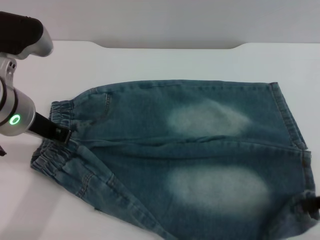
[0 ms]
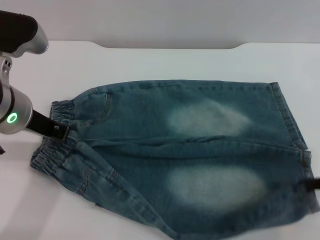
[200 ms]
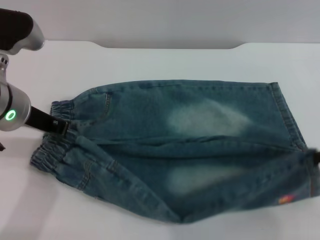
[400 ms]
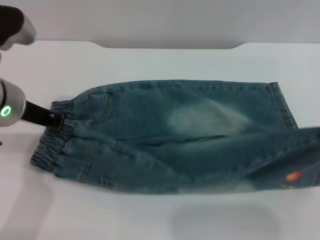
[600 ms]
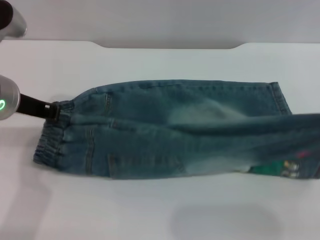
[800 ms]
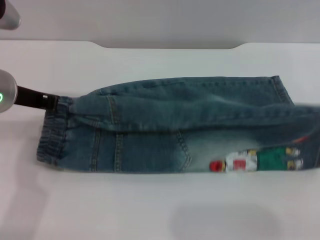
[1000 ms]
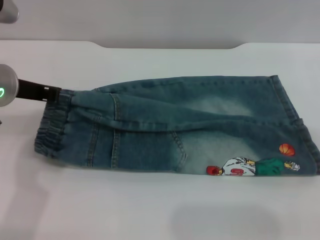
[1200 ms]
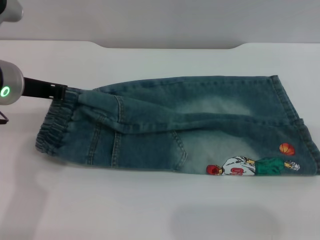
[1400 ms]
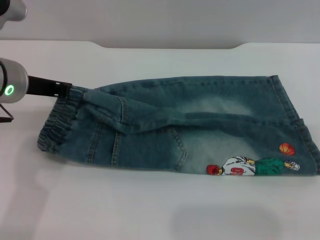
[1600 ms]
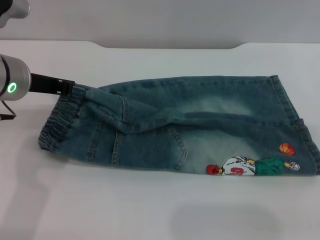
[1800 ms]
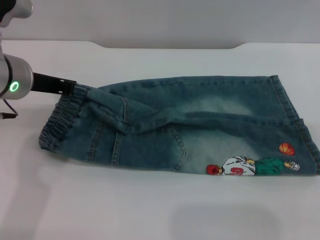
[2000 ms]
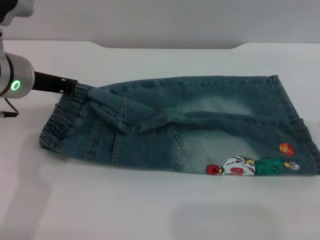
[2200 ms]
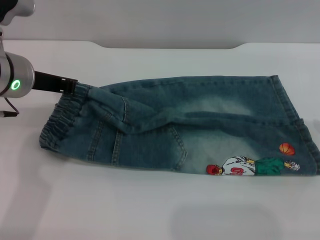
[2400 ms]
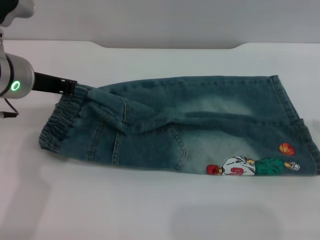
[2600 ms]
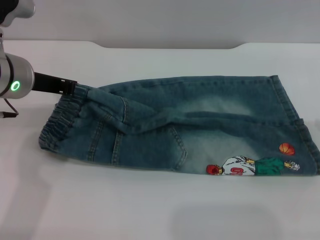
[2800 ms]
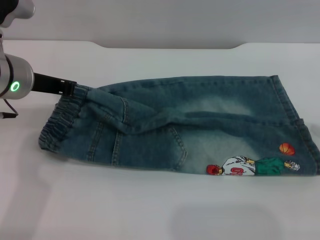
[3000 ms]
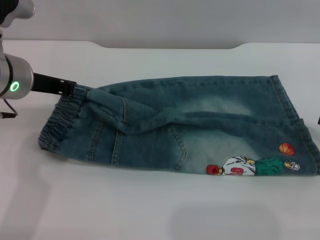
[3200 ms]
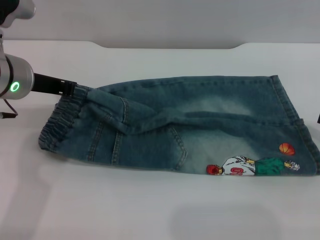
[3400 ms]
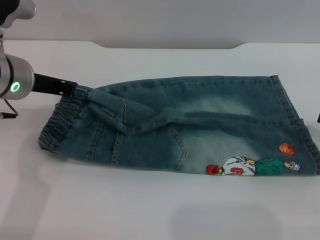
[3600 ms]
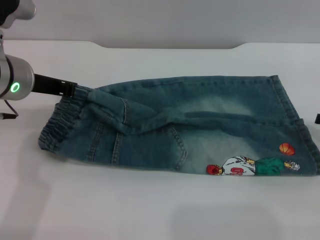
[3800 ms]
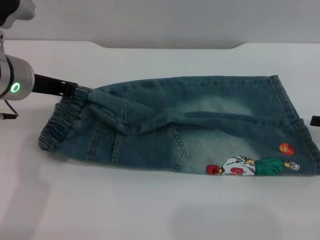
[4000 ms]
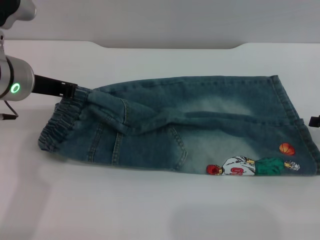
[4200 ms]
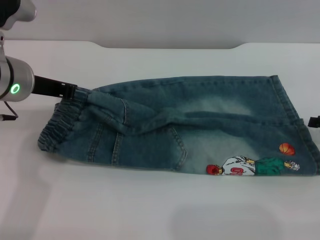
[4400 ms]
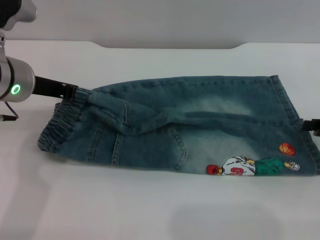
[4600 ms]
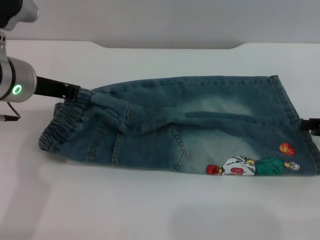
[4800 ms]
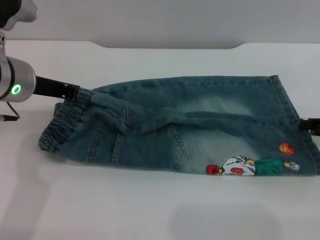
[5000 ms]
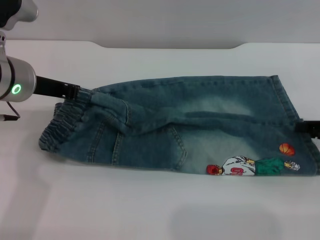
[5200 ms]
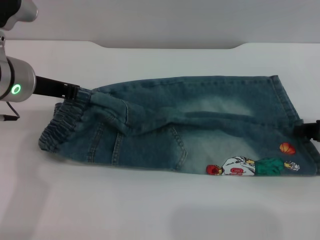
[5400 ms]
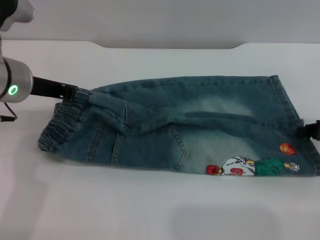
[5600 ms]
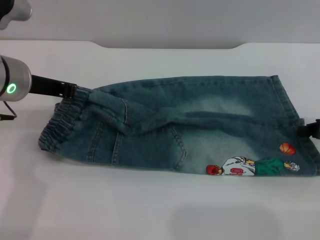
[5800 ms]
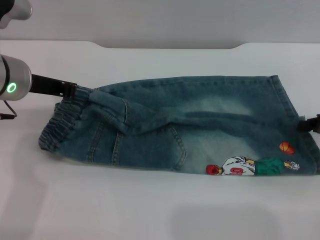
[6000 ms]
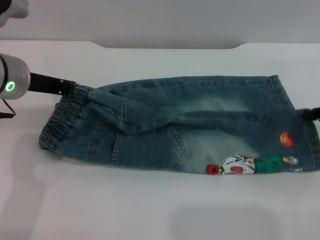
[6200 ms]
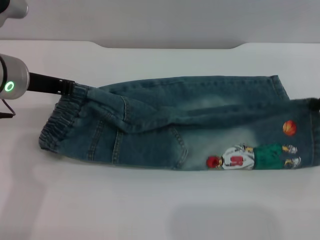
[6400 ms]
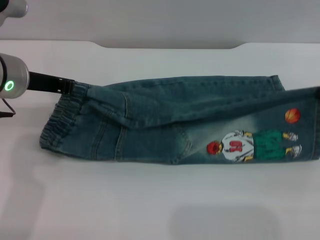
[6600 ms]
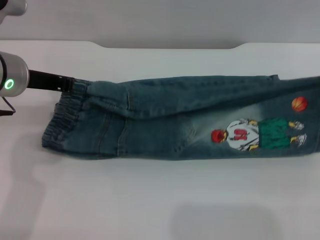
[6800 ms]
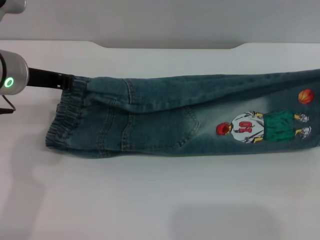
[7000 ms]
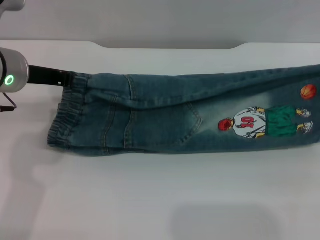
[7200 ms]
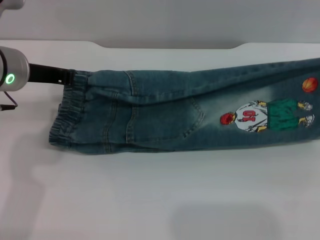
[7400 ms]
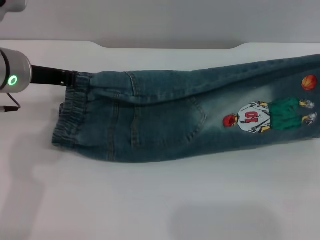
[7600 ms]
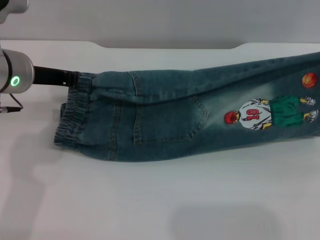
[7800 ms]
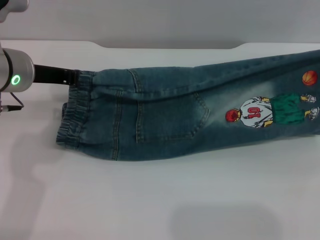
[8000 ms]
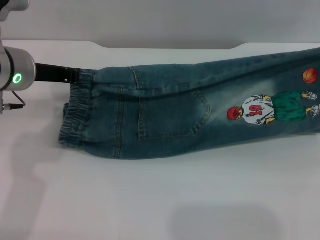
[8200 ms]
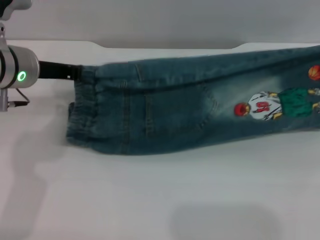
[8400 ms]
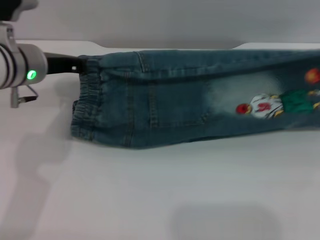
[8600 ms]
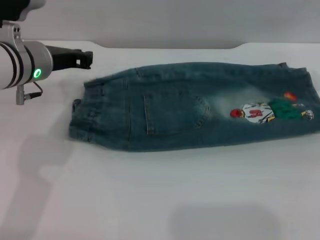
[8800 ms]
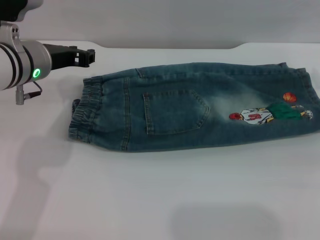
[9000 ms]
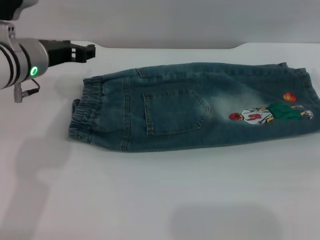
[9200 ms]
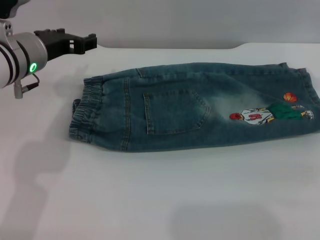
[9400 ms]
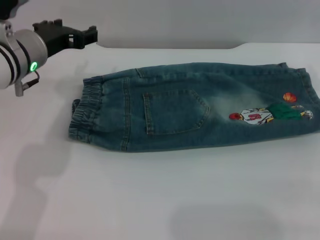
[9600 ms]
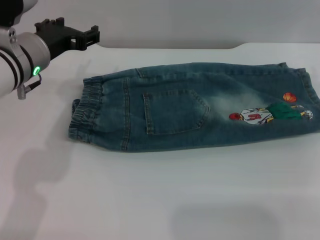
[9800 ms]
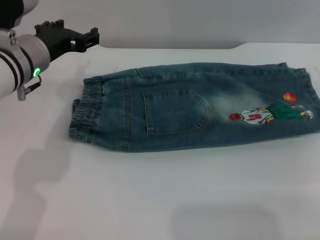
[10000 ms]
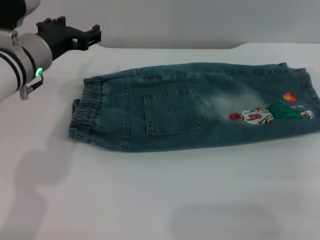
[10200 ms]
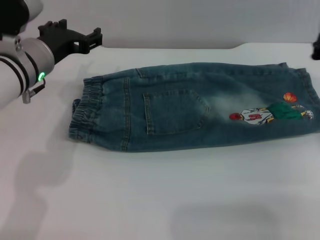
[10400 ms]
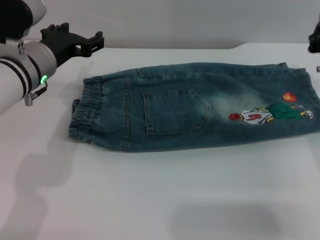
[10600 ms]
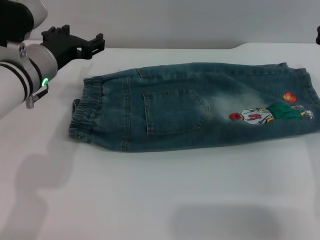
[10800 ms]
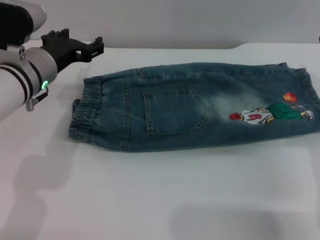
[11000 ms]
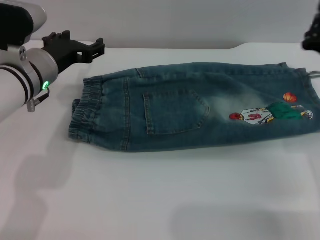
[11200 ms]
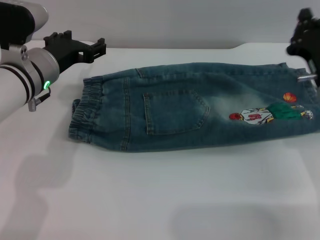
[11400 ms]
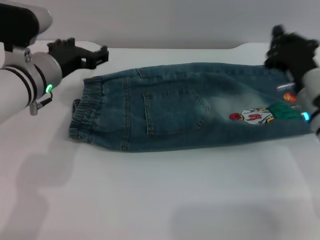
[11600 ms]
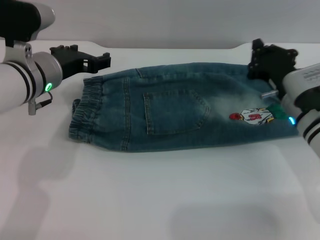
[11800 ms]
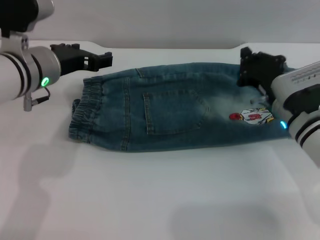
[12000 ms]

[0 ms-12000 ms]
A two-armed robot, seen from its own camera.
Step, 0 ms to 9000 ms: Fold the bottom of the pants upward with both grippers.
0 ms to 1600 ms: The right gripper heads upward and to the right, covering roughly 10 cm.
3000 ms to 4400 ms: There are only small adjustments of the grippers.
6000 ms to 7600 ms: The right gripper is displaced upward by about 10 cm.
7600 ms to 9000 ms: The right gripper ends up about 5 cm from where it was.
9000 ms to 10400 ms: The left gripper opens up.
10400 ms to 12000 ms: The right gripper travels downward and to the left by about 10 cm.

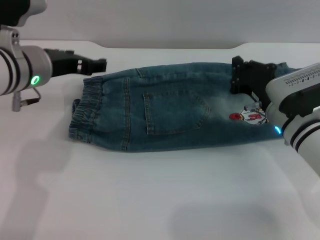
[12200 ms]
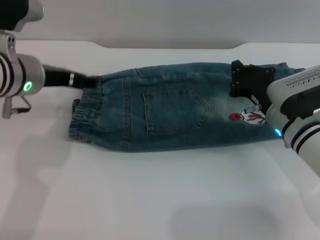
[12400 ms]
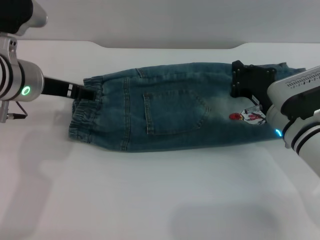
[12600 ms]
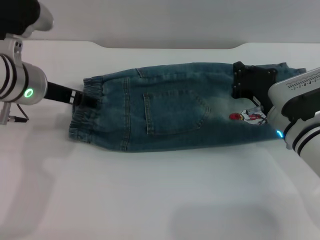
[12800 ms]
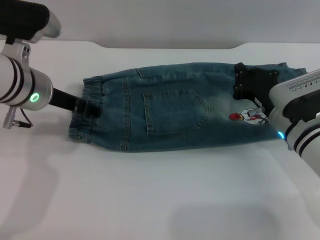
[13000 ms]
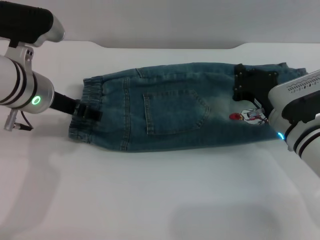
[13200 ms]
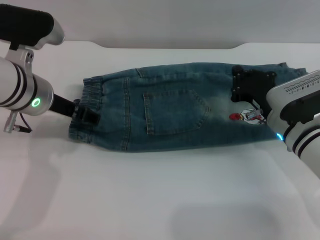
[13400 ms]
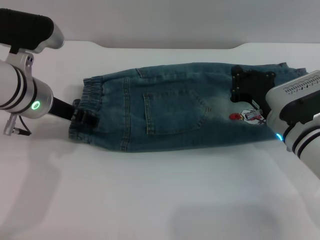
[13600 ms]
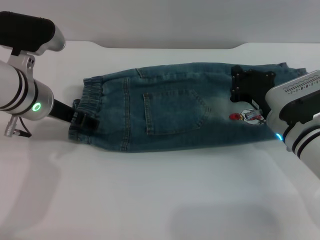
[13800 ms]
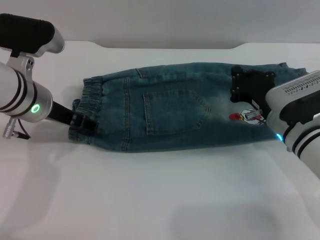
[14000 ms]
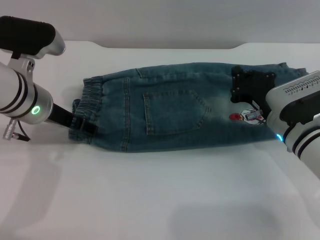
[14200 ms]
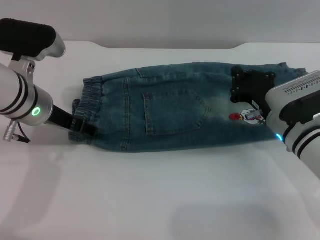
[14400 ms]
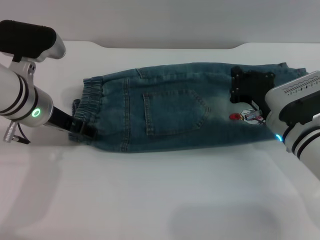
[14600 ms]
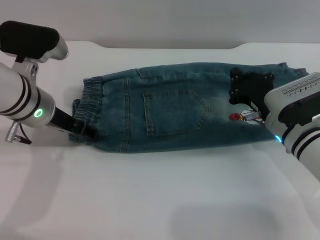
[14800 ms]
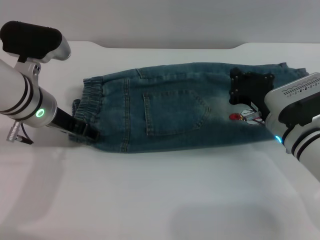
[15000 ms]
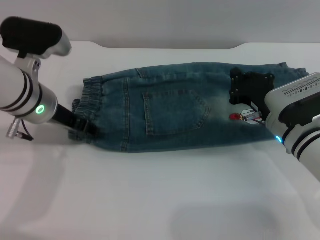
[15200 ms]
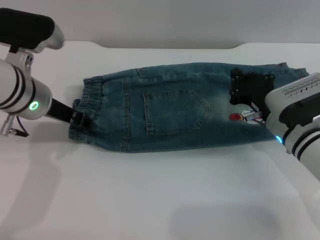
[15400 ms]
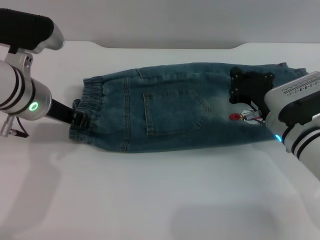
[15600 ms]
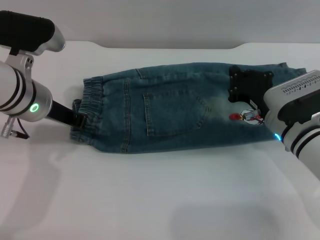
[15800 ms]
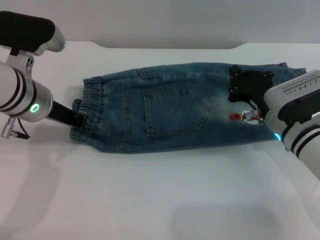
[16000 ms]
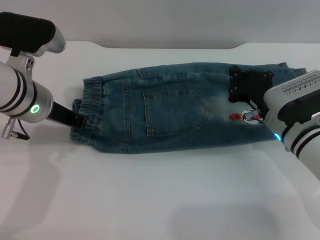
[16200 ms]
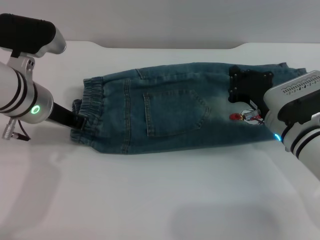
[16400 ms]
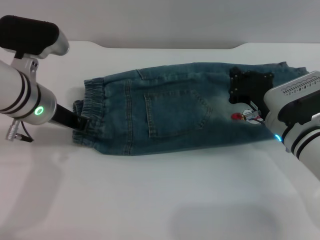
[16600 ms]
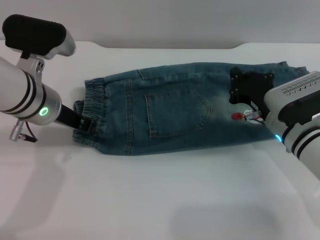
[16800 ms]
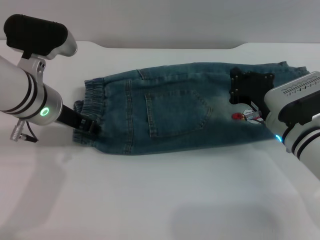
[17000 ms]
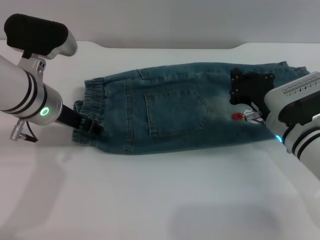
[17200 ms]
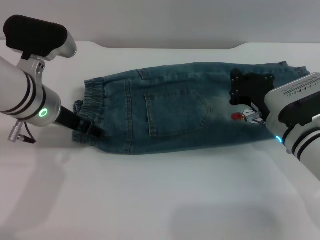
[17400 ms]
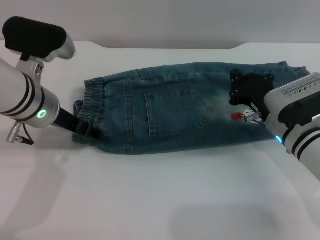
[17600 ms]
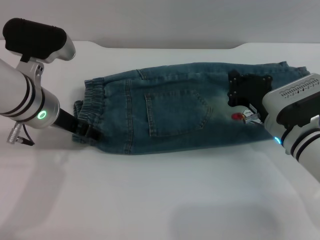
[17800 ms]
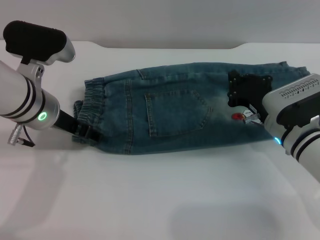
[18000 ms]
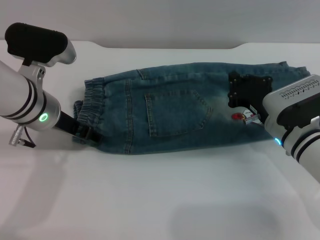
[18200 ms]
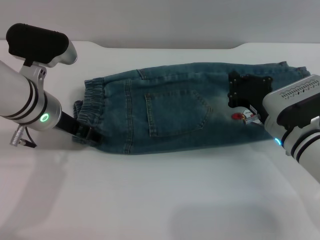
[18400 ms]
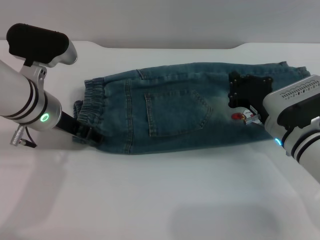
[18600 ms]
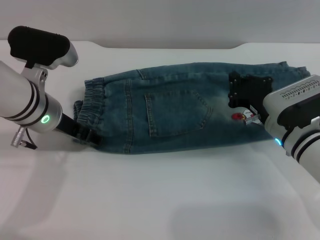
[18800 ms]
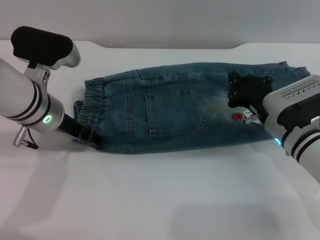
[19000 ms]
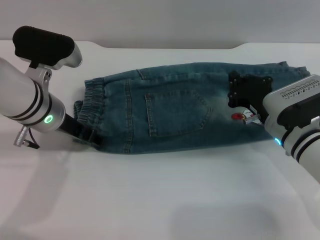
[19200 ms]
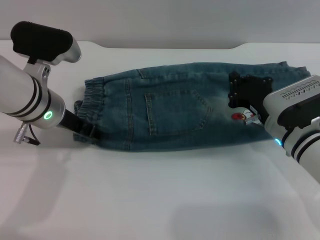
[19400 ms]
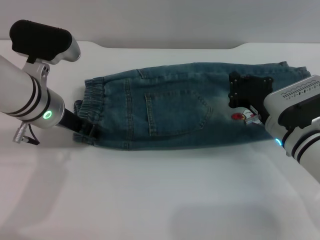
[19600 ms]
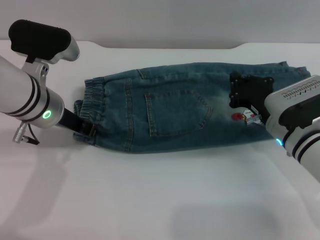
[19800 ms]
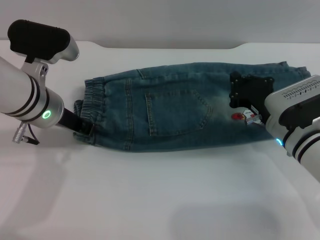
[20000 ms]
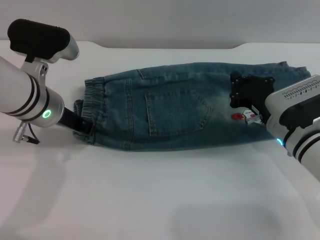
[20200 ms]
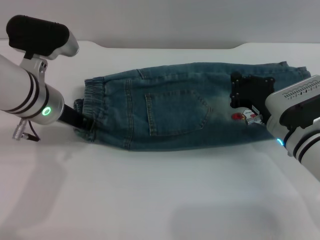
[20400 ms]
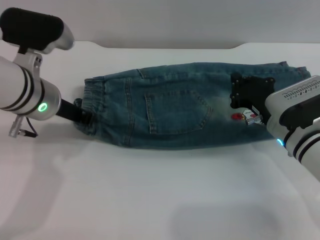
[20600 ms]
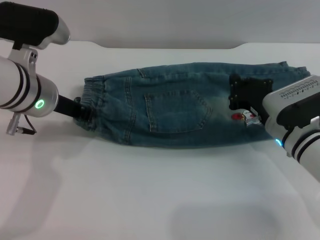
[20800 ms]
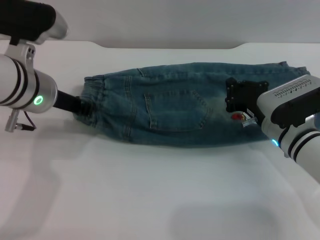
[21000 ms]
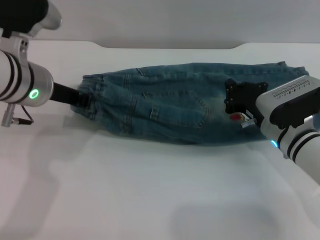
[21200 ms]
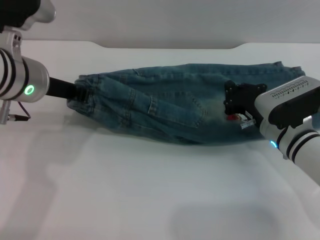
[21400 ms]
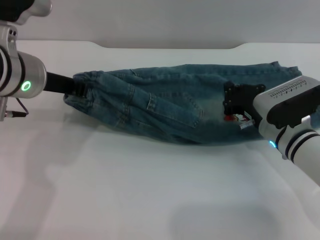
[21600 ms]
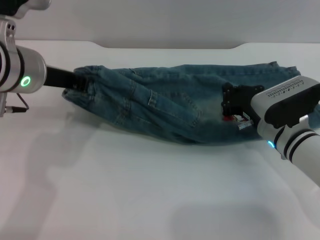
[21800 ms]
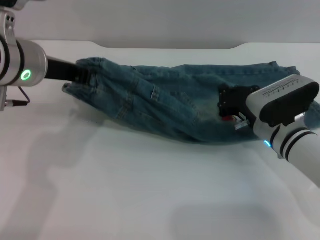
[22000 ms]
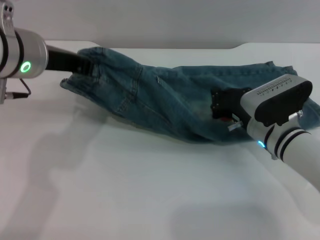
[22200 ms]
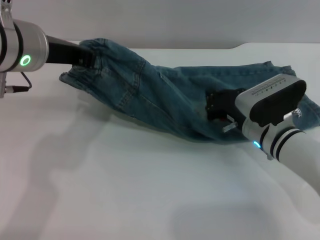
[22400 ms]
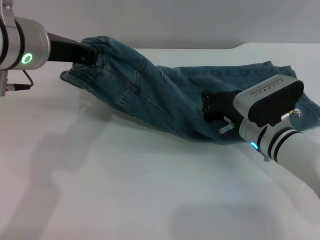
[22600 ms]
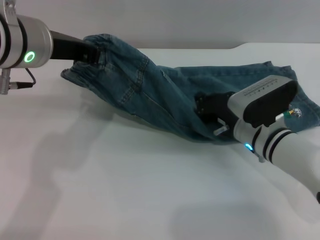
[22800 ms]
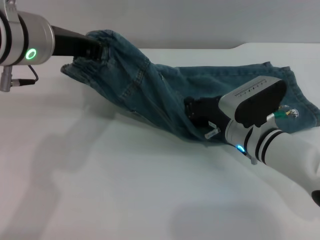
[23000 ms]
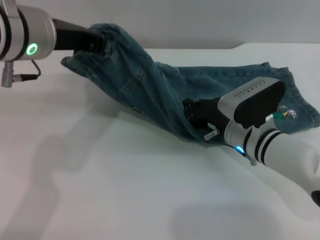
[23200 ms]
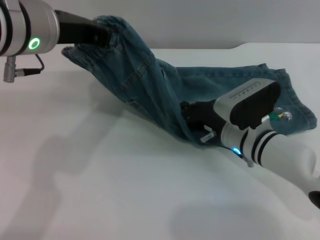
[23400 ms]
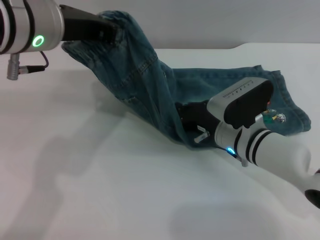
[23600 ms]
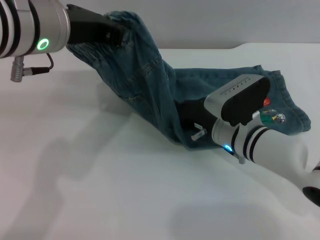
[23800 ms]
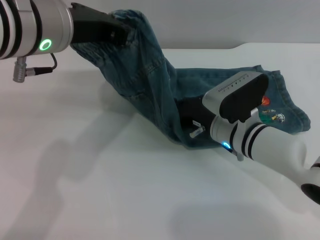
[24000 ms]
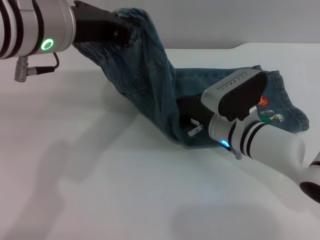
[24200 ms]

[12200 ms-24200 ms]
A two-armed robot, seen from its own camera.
13800 ms to 15200 ms: Both grippers stay about where they are.
15200 ms to 16600 ms: The left gripper closes up.
16600 ms to 18200 ms: The left gripper opens its fingers.
18200 ms to 19800 ms: The left gripper closes.
19800 ms to 21200 ms: The left gripper closes.
21200 ms to 22600 ms: The left gripper travels upward by roughly 5 cm.
